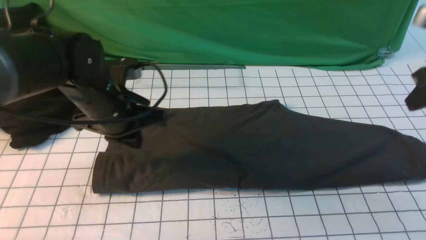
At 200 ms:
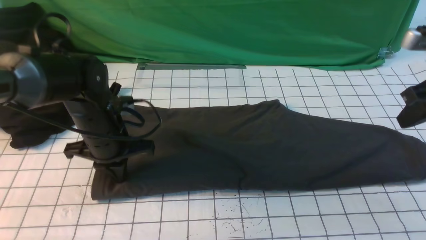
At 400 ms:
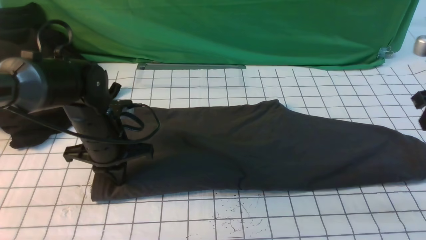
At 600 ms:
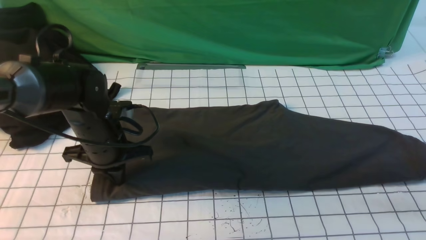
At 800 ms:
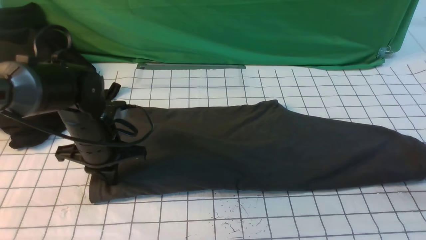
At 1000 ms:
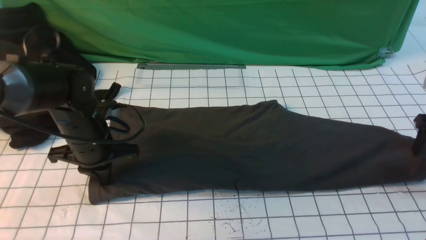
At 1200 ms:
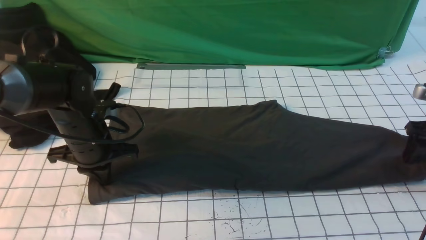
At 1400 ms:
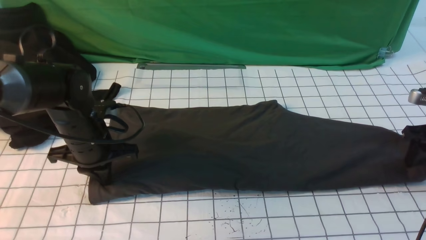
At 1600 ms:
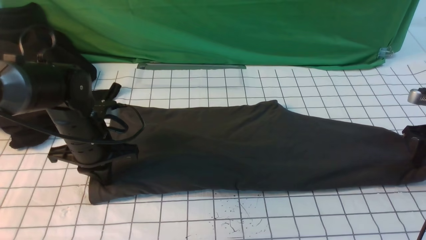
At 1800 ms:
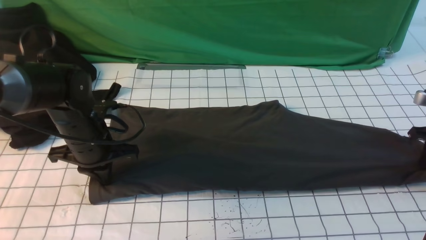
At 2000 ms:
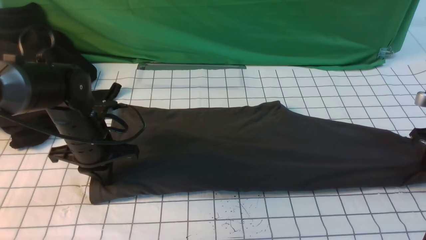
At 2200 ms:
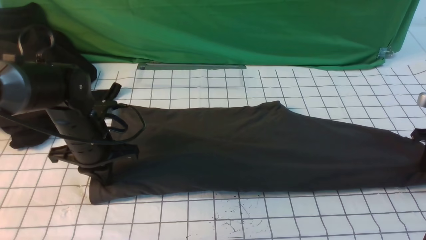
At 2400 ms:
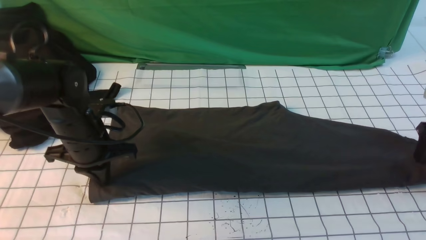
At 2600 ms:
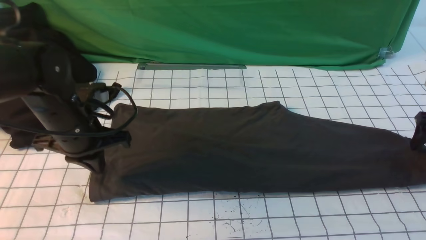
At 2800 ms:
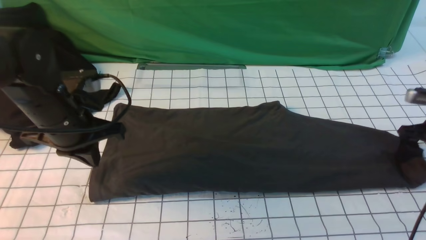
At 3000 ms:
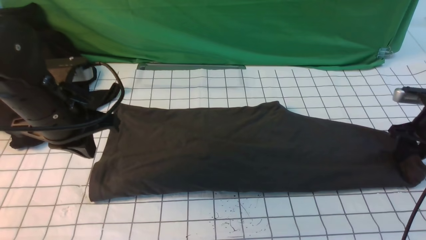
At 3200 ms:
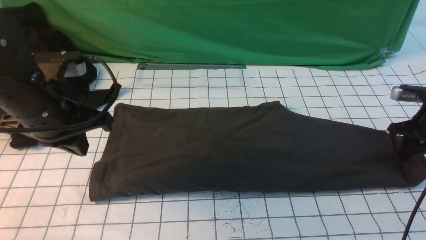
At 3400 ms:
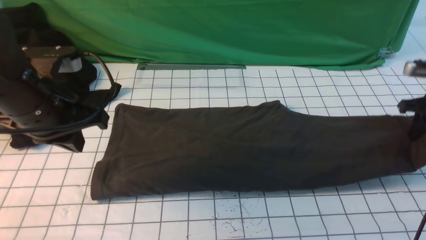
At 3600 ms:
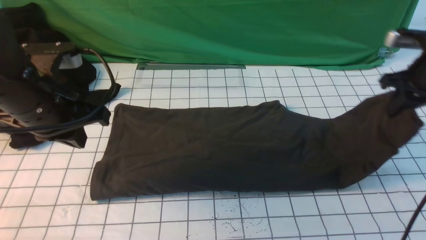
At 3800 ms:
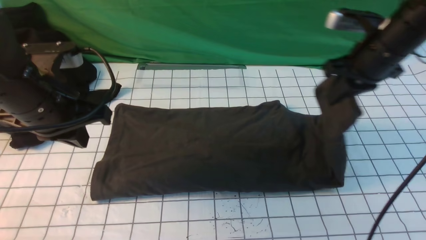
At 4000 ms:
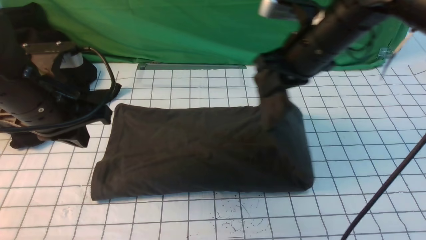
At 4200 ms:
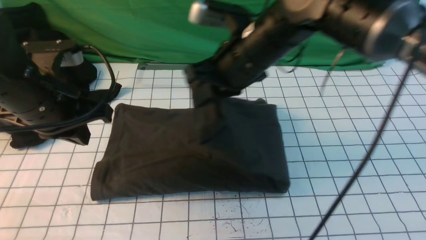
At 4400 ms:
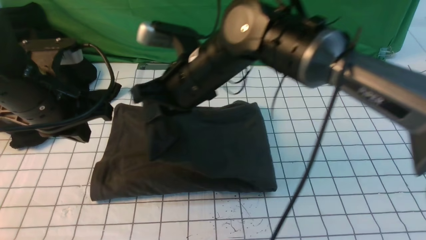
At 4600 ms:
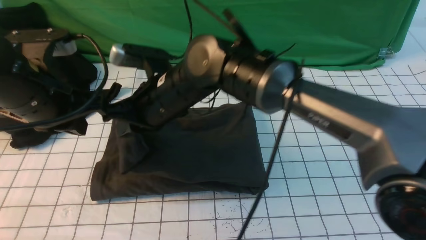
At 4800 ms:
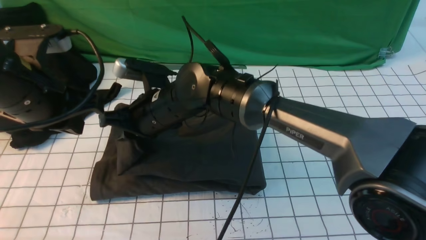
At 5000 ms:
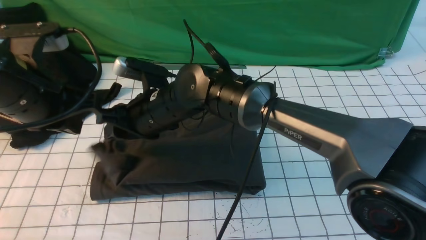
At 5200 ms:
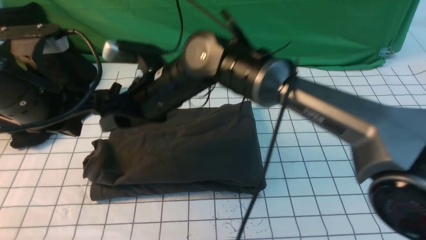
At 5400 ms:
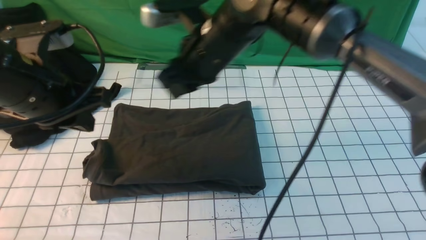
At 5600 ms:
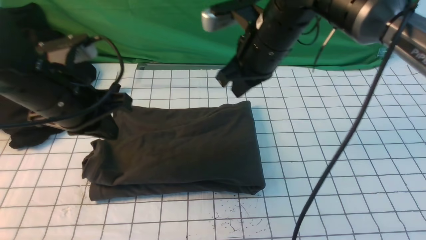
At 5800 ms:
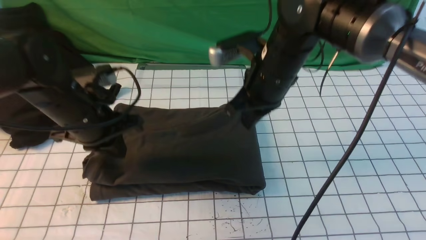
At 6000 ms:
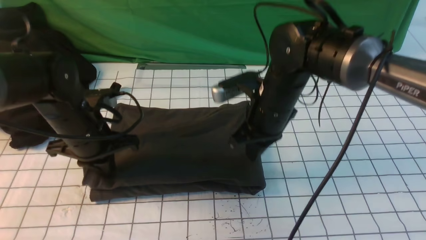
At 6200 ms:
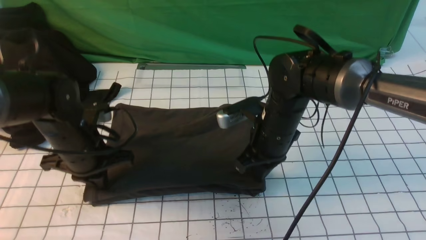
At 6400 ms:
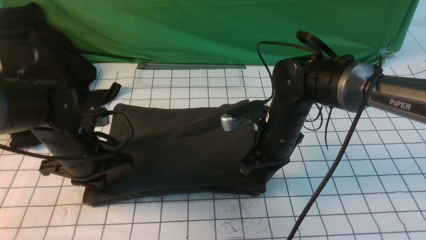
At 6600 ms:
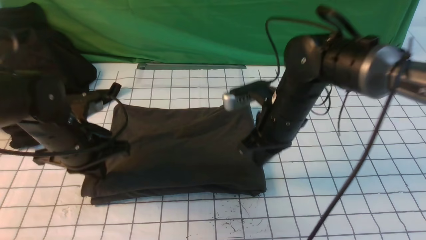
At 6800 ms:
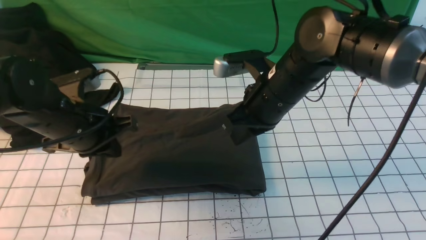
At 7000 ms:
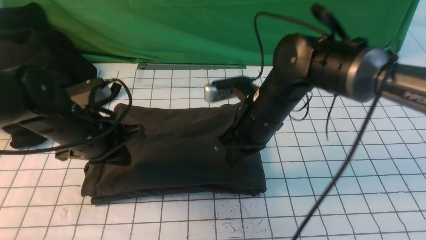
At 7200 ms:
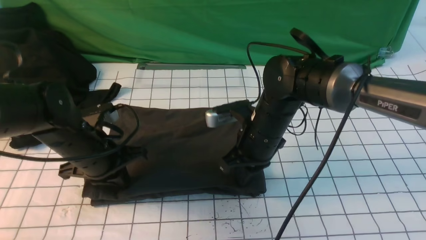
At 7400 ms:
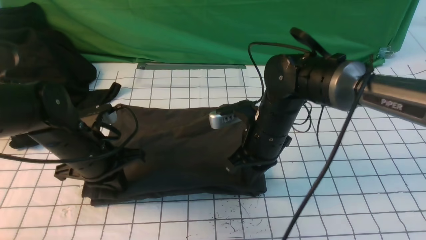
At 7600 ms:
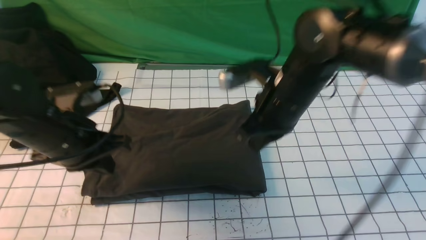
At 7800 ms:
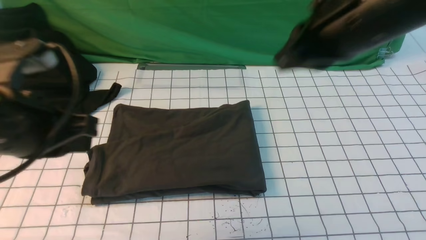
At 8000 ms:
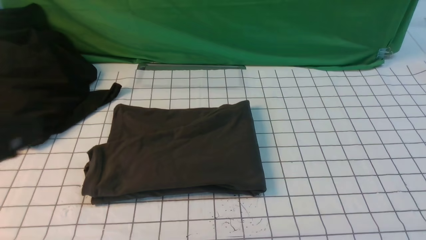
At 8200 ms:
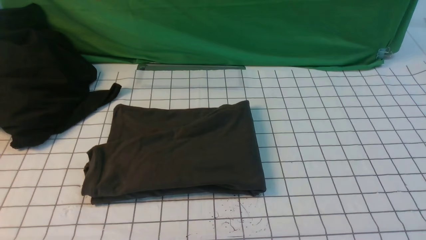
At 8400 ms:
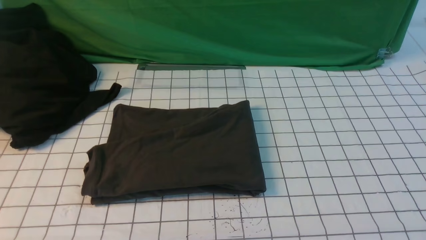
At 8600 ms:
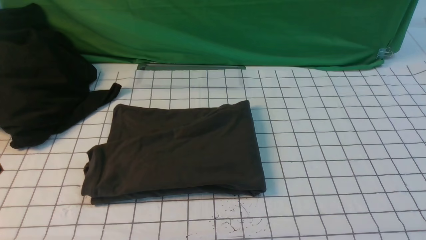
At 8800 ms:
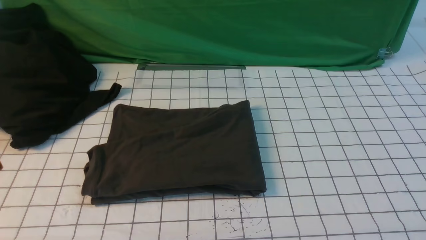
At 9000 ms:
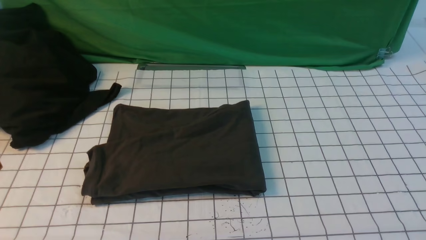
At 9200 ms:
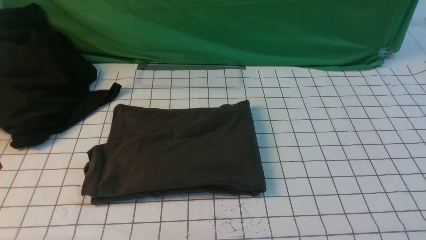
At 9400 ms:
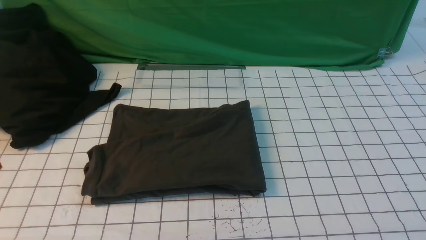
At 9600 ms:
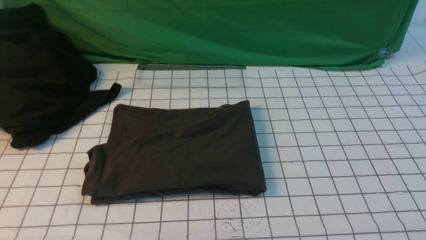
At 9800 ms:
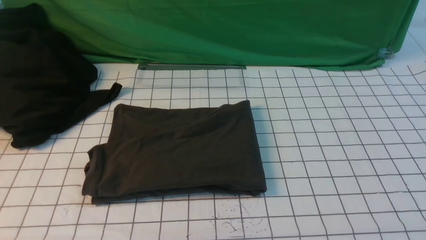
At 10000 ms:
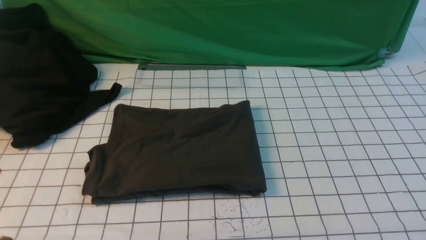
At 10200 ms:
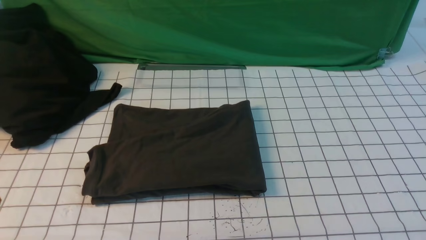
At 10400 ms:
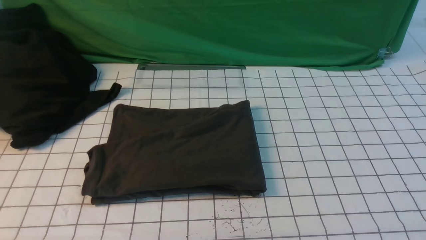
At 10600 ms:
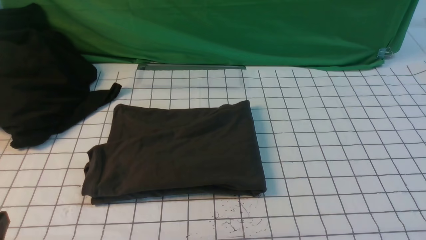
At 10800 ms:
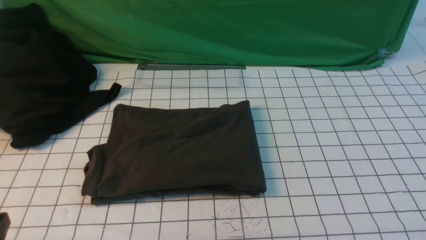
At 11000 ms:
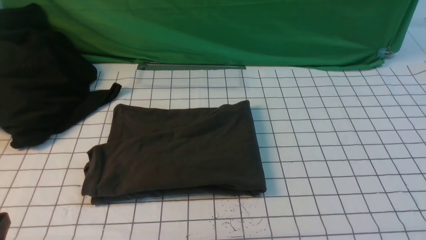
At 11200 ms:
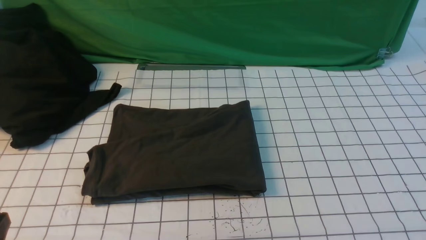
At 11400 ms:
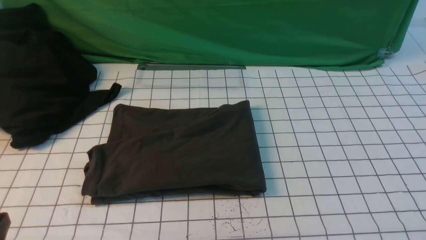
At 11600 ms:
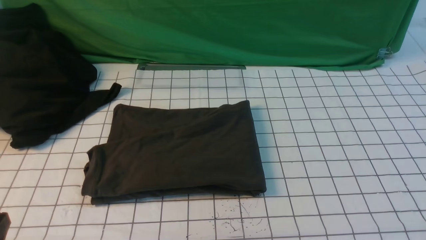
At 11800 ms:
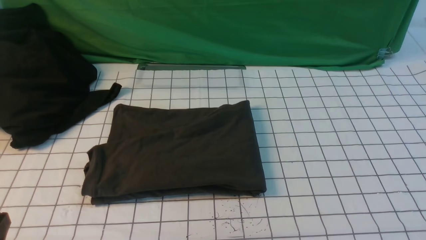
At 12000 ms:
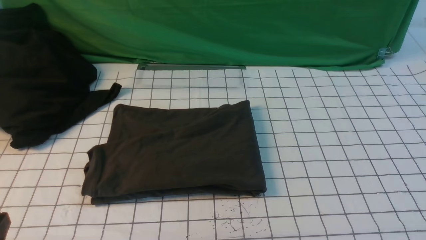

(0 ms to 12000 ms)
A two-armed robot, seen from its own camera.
Step, 1600 ms - 5000 ms: use the right arm to drag the right edge of the fabric to the left and folds it over the left edge.
0 ms - 1600 ms: The left gripper changes place by some 5 cm; the right gripper moves downward and to the right, about 20 cm, and opens and closes again.
1600 ms - 3000 ms: The left gripper travels upward by approximately 10 cm. The right gripper opens, then closes again.
3000 ms - 4400 ms: The right gripper heads to the left, covering some 40 cm, and closes its fingers.
4400 ms - 6000 ms: The right gripper travels to the right and downward by roughly 15 cm, and opens, then closes again, while the left gripper goes about 10 cm downward.
6000 ms - 7600 ms: The left gripper goes some 10 cm upward and backward, while the right gripper travels upward by approximately 10 cm.
7600 ms - 9000 ms: The right gripper goes some 35 cm backward and to the right. Meanwhile the left gripper travels backward by some 20 cm.

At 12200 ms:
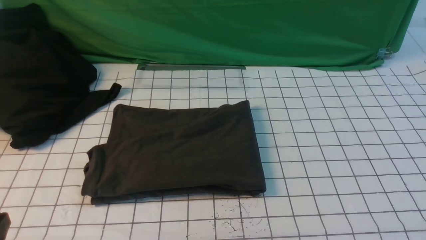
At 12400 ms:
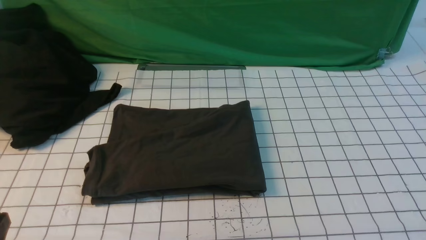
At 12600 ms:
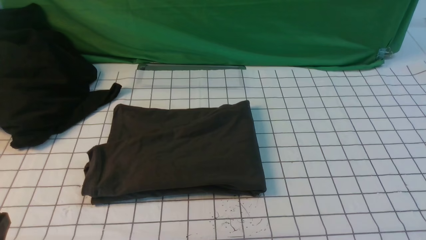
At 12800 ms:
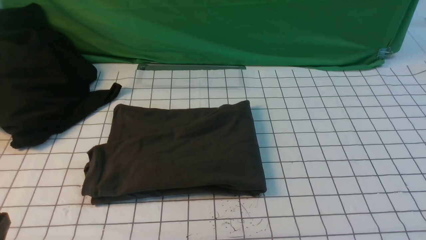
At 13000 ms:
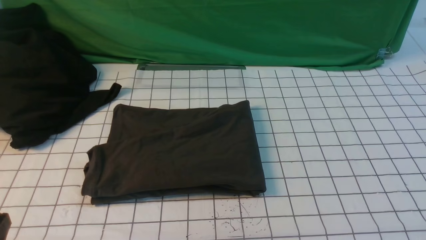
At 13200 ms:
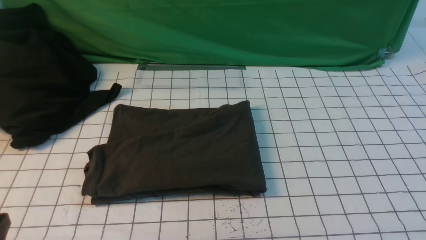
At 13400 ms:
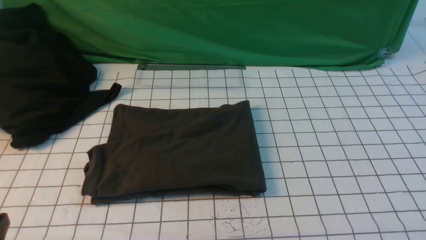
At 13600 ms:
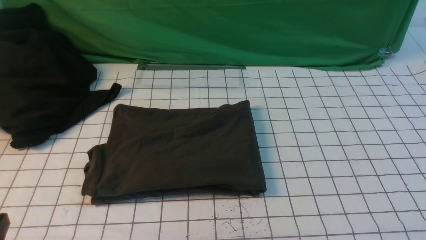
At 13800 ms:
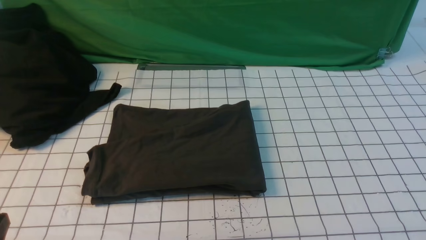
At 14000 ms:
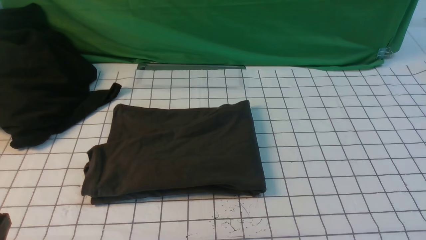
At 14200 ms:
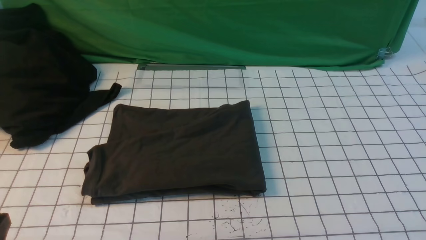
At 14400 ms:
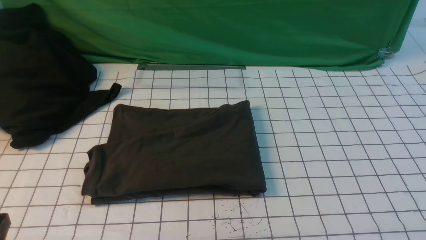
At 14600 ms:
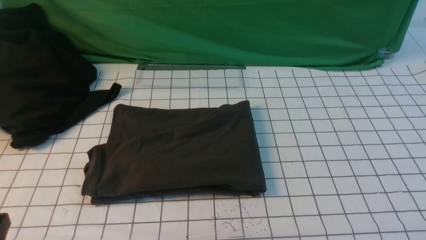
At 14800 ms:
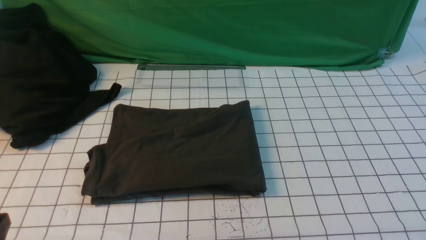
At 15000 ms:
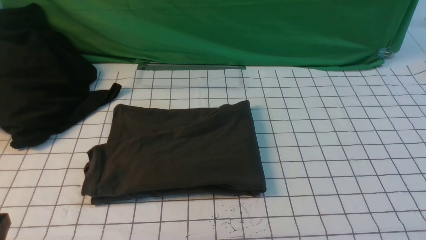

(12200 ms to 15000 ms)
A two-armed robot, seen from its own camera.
13600 ms - 15000 ms: Both grippers stay about where they are.
